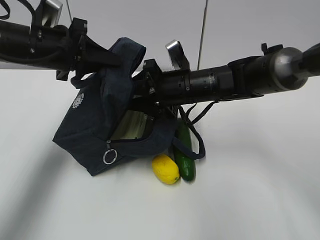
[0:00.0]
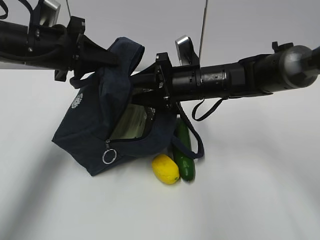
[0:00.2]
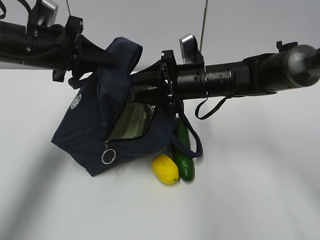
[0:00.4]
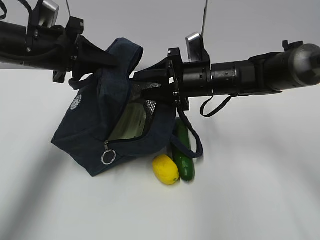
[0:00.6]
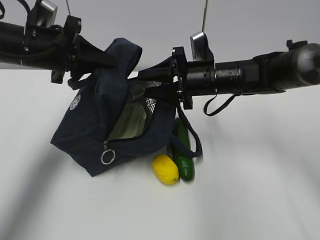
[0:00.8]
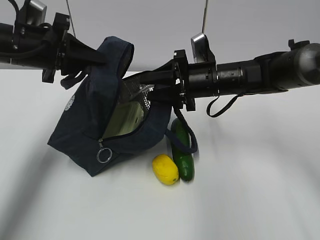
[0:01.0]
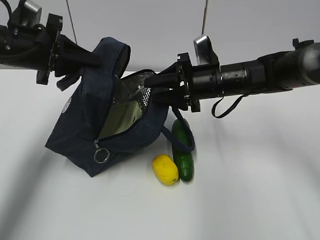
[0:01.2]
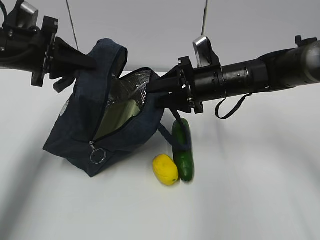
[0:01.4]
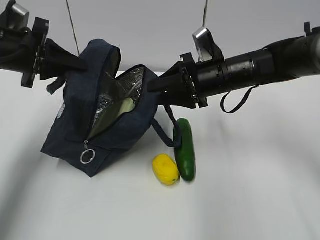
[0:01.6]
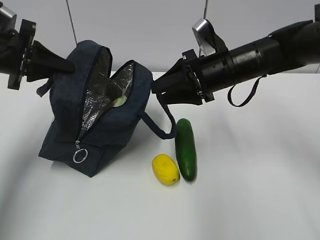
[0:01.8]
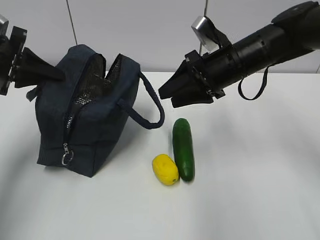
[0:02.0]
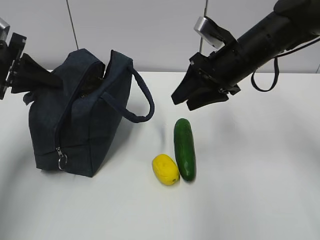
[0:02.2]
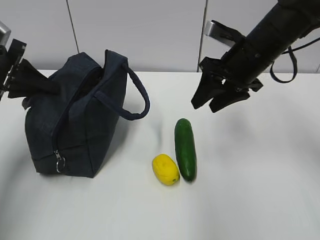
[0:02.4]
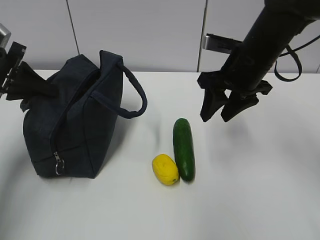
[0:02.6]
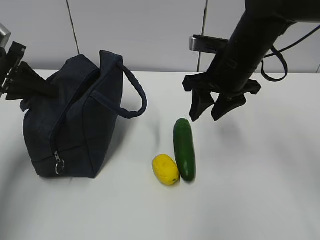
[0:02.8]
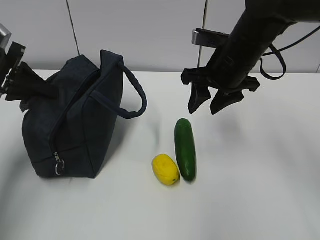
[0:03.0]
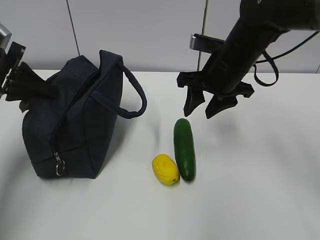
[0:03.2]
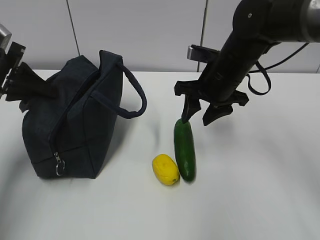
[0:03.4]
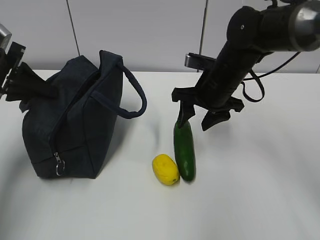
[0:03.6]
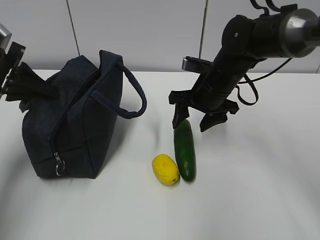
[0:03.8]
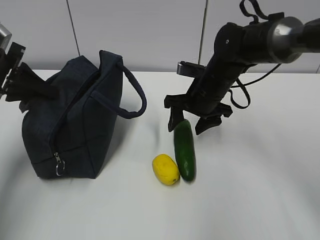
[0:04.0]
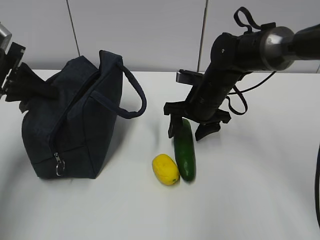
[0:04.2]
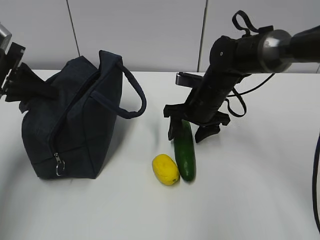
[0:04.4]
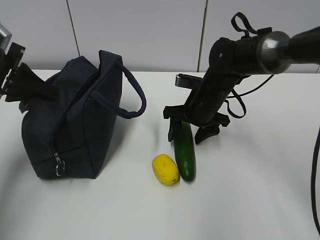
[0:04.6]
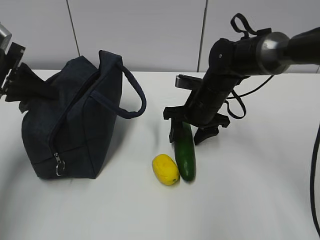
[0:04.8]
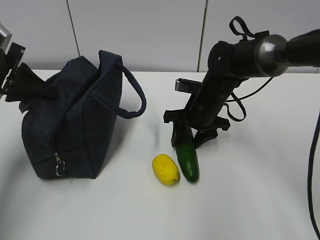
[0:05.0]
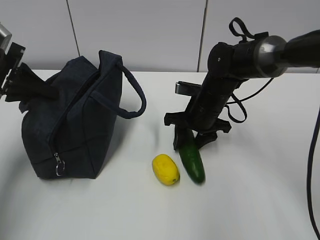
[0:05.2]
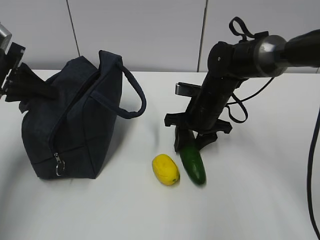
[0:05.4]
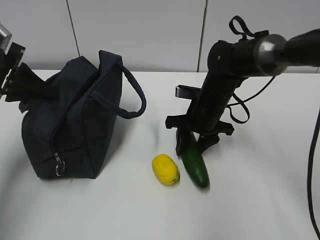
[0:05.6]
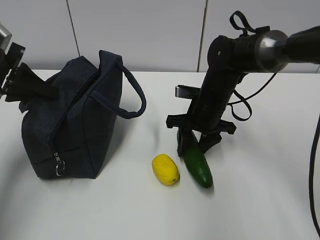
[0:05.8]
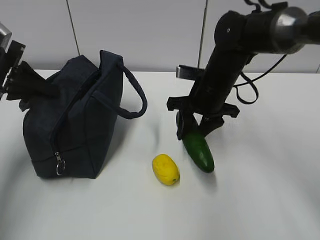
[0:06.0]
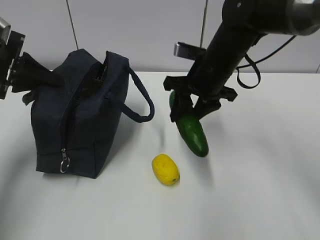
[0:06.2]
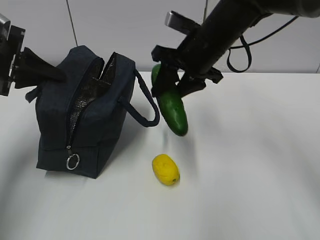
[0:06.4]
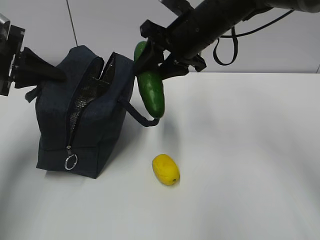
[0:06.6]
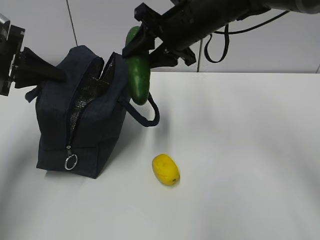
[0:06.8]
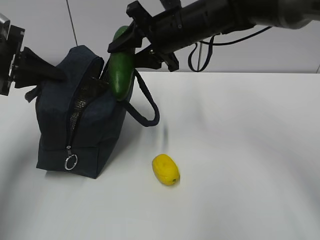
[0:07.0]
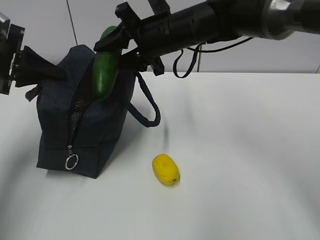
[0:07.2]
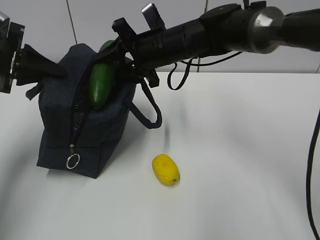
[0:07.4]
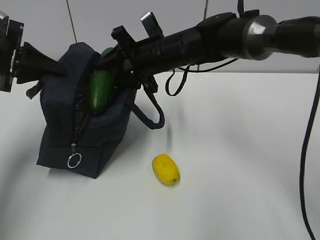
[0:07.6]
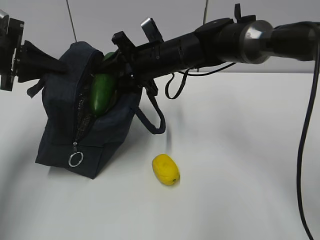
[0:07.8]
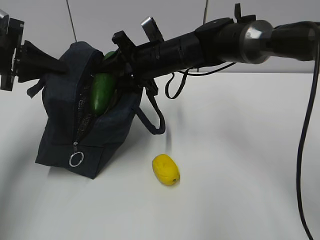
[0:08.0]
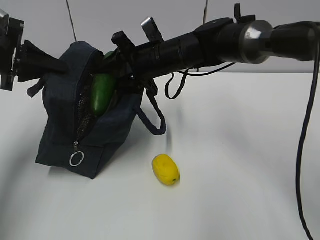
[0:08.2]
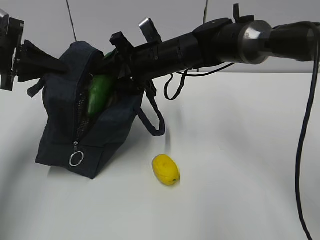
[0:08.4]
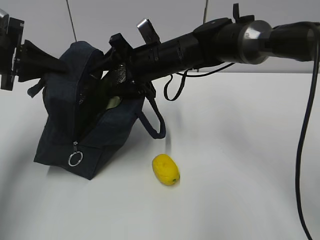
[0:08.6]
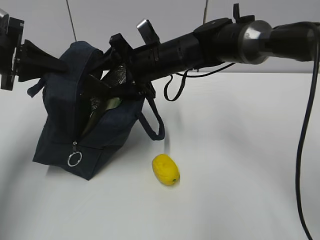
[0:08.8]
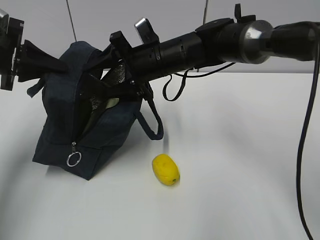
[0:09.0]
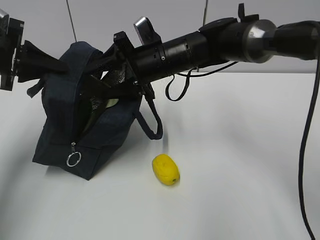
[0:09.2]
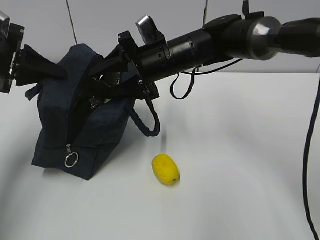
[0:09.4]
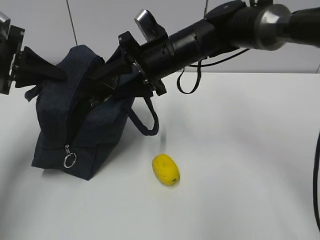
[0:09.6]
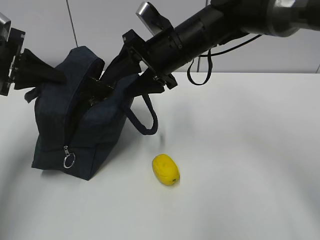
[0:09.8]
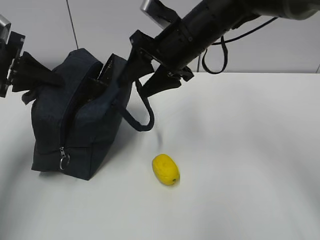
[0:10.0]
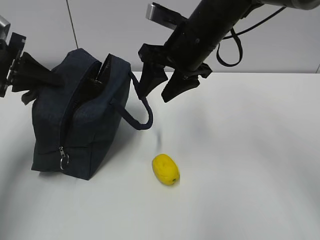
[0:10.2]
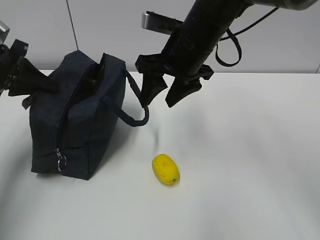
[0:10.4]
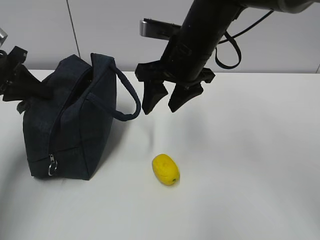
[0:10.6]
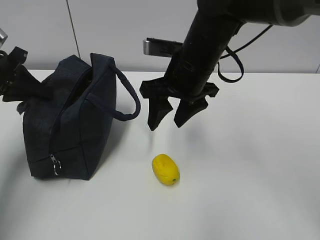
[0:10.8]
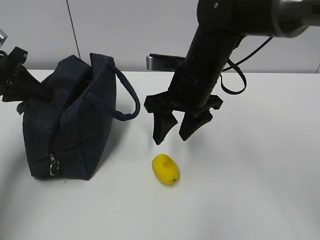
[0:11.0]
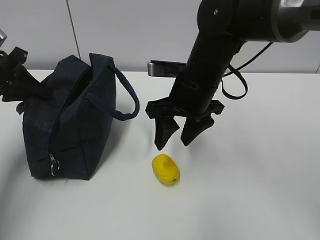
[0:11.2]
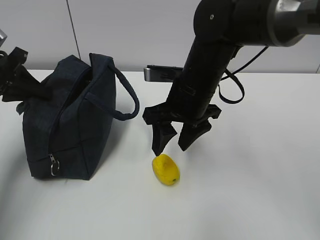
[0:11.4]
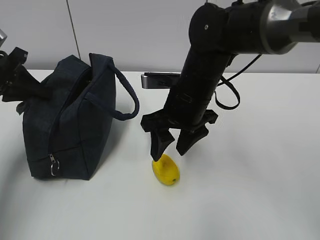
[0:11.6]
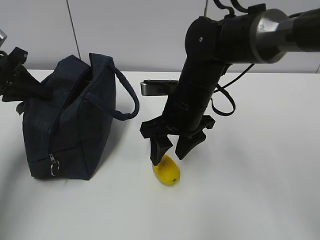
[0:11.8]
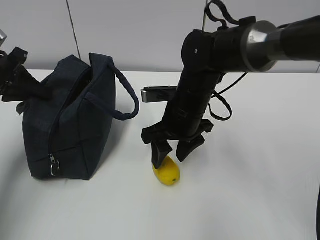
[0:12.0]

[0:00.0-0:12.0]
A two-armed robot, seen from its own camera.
Step, 0:00.0 to 0:01.8: Place it into the bag with your right hand.
Step, 0:02.0 to 0:06.2: Grab the lemon with your right hand.
Step, 0:06.4 to 0:08.0: Place it into the bag with your right hand.
Step, 0:08.2 to 0:10.2: Grab the lunch bag with your right hand.
0:00.0 to 0:01.6: The left gripper heads to the left, covering some 5 cm. The right gripper travels to the right by roughly 5 cm.
0:01.6 to 0:03.0: The right gripper is displaced upward by some 5 cm.
0:03.0 to 0:04.4: The right gripper moves downward, approximately 10 cm.
0:04.4 to 0:06.0: The right gripper closes its fingers.
0:06.0 to 0:07.6: The right gripper travels to the left and upward by some 10 cm.
0:07.6 to 0:09.0: The right gripper opens.
0:09.0 to 0:10.4: The right gripper goes roughly 10 cm upward and backward.
0:10.4 to 0:12.0: The right gripper goes roughly 10 cm downward.

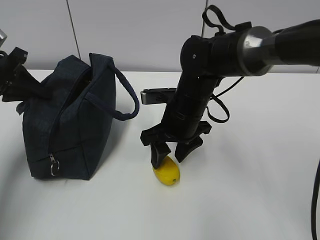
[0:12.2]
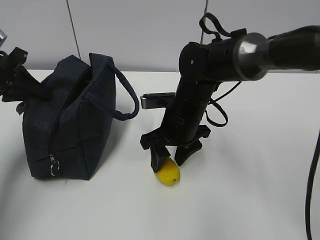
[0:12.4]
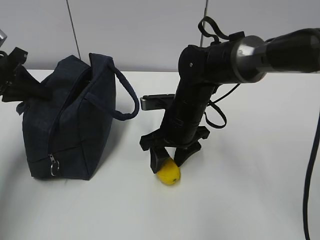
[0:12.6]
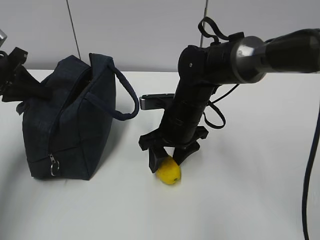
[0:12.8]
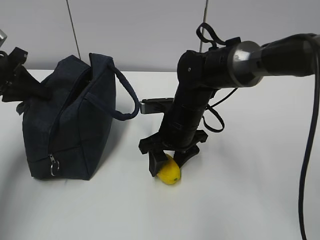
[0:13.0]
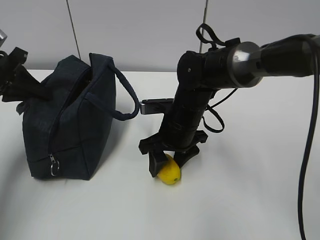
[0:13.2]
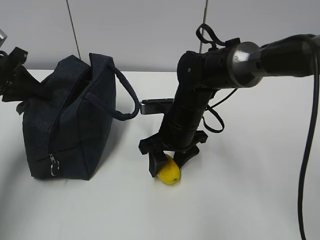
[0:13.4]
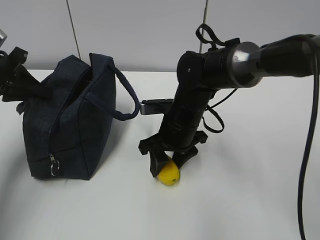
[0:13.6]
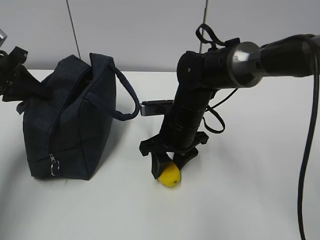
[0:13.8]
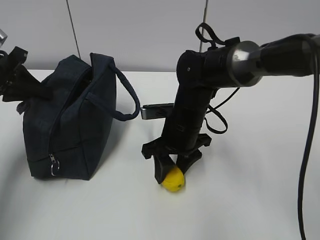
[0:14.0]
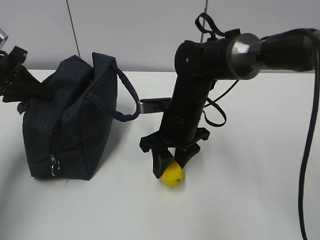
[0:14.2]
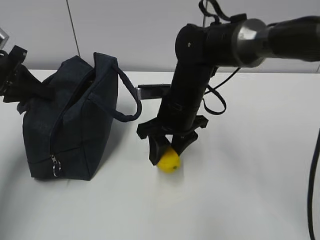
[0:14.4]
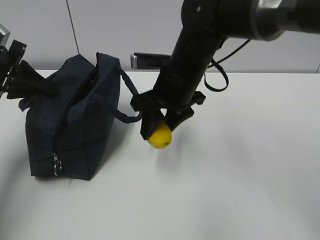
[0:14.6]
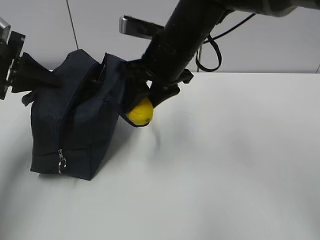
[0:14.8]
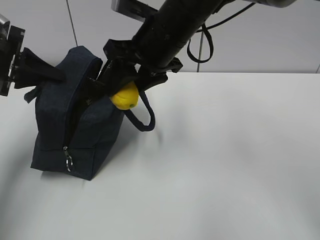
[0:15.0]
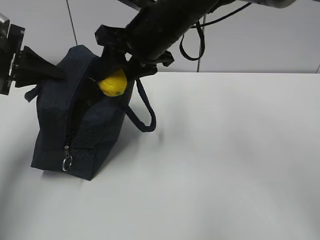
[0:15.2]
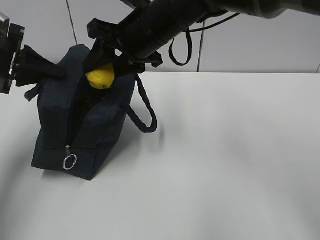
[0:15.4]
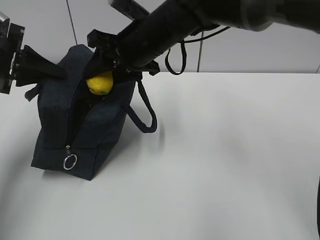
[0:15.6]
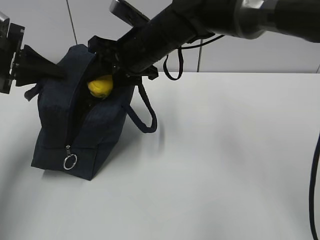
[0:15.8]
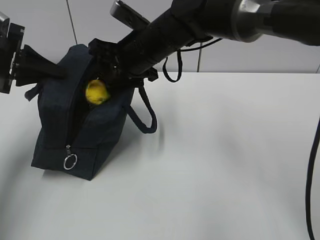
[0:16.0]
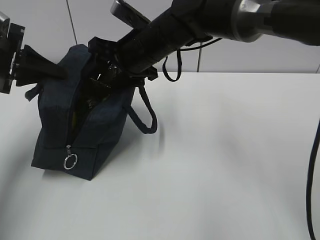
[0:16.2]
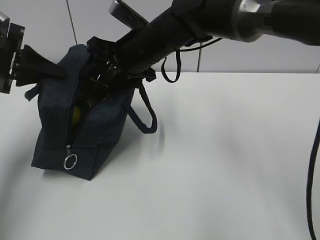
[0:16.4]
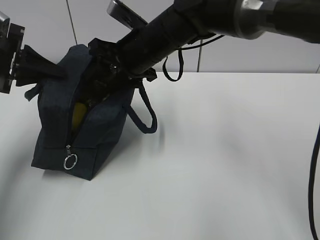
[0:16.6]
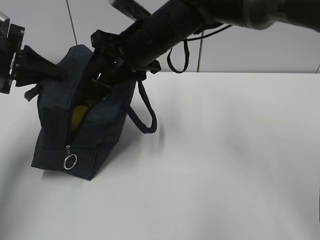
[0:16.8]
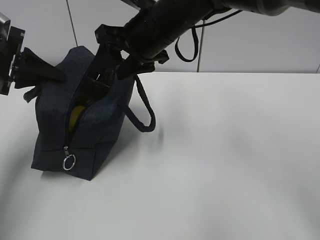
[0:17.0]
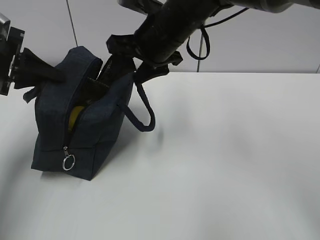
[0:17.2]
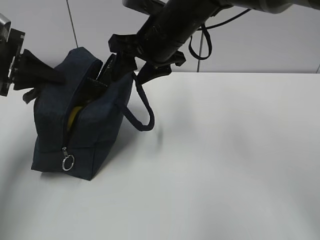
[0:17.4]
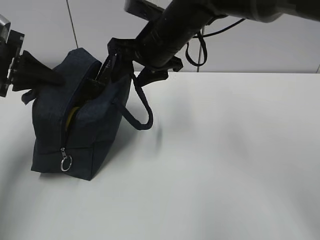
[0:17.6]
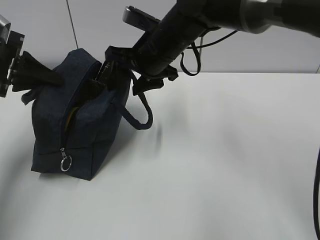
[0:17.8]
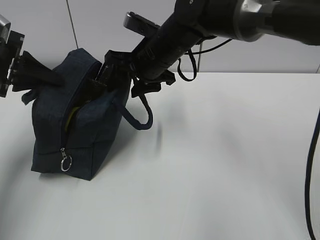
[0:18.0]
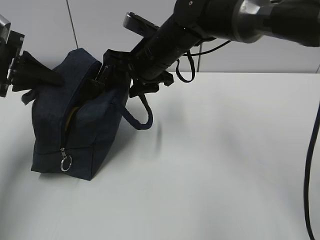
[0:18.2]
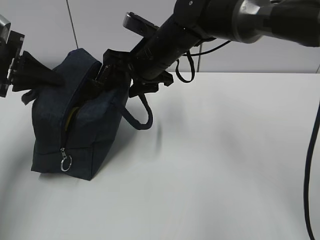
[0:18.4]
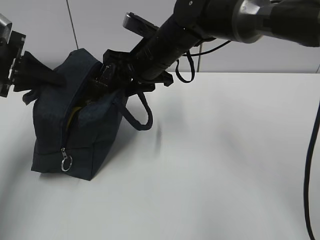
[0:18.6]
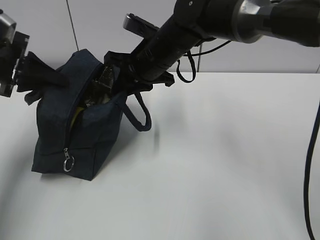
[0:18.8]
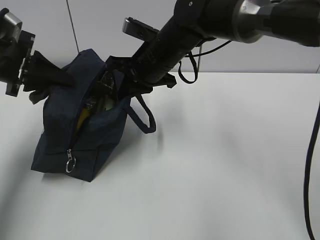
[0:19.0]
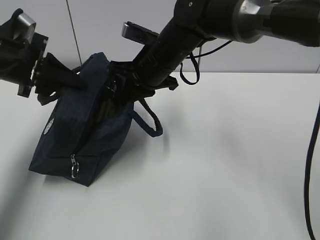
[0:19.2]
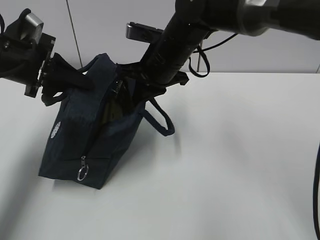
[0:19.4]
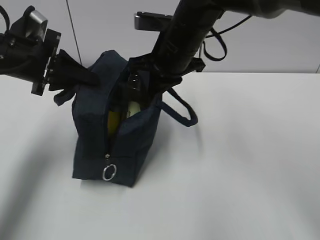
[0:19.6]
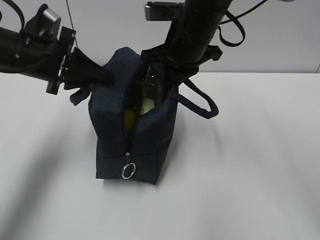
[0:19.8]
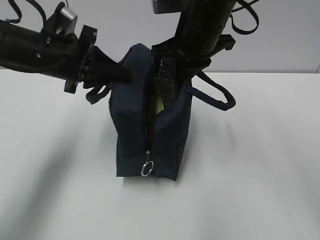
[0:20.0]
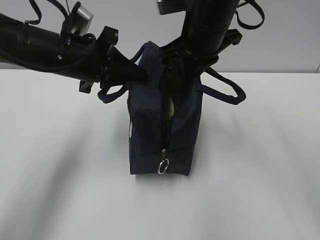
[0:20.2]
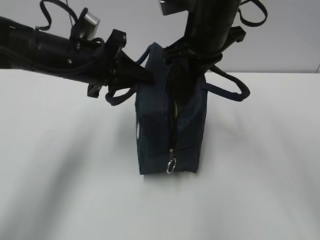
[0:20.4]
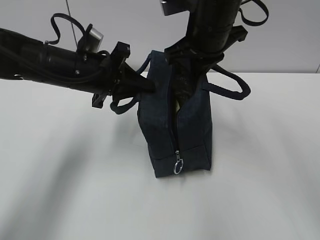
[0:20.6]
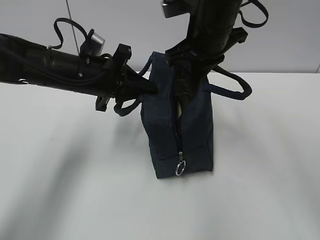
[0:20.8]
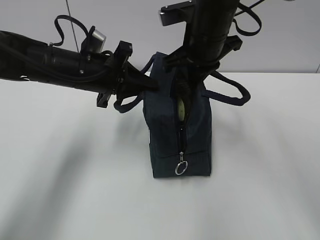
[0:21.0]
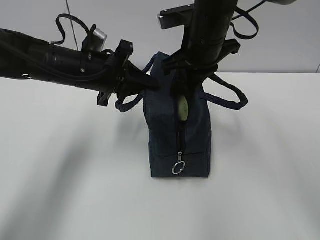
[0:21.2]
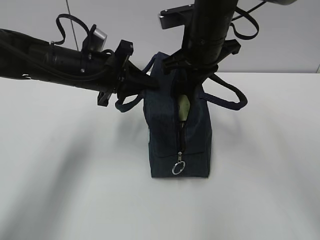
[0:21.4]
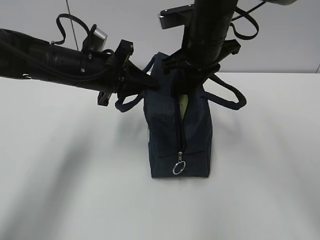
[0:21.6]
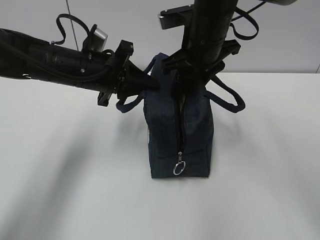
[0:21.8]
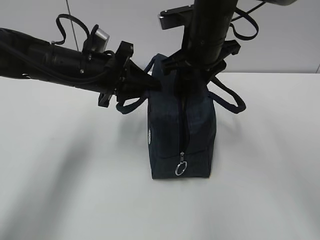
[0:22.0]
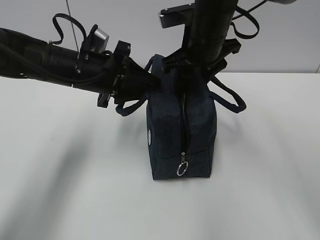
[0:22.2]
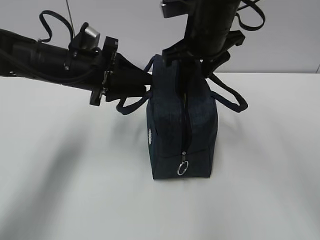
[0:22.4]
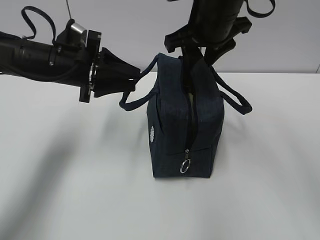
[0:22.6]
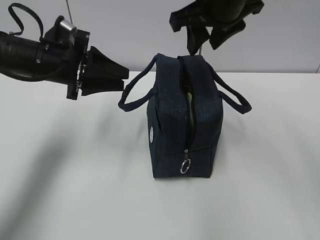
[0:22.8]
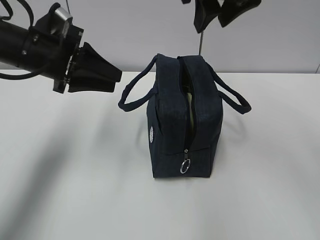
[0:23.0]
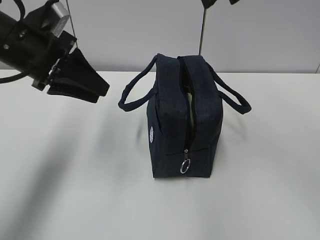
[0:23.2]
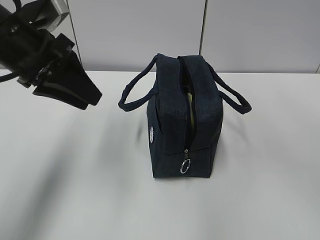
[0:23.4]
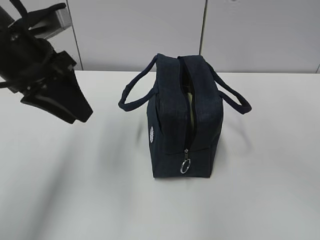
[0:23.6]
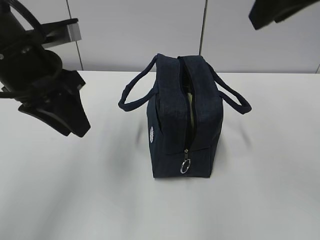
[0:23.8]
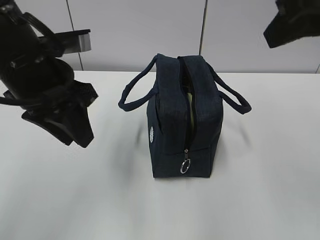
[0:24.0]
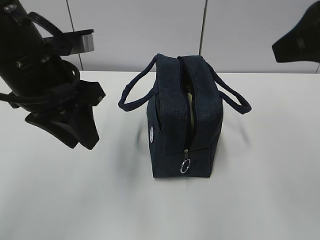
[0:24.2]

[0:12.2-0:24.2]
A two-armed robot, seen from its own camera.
0:12.2 to 0:13.8: The grippers make only small movements.
0:13.8 to 0:15.2: The right gripper heads upward, covering about 15 cm.
0:15.2 to 0:16.6: The right gripper moves approximately 5 cm.
0:16.6 to 0:18.2: The grippers stay close to where they were, moving slightly.
0:18.2 to 0:19.8: The left gripper goes about 10 cm to the right; the right gripper moves upward, approximately 5 cm, and closes up.
0:19.8 to 0:21.2: The left gripper travels to the right by some 10 cm.
0:21.2 to 0:22.6: The right gripper opens up, while the left gripper opens.
0:22.6 to 0:24.2: The right gripper is displaced backward, to the right and upward by approximately 20 cm; the left gripper travels backward and upward by some 15 cm.
